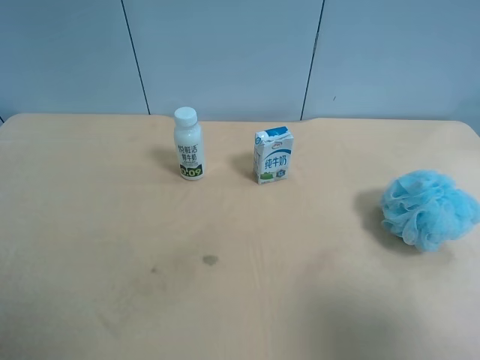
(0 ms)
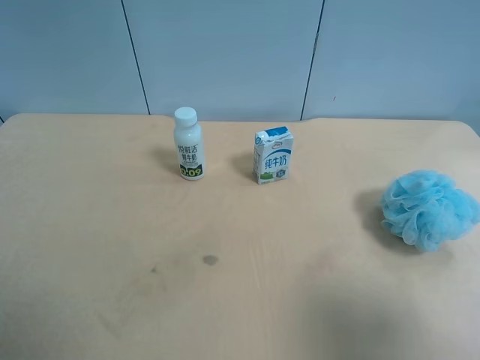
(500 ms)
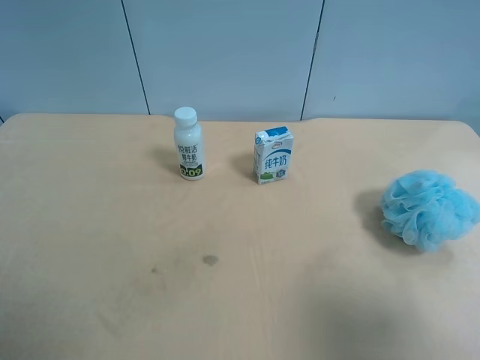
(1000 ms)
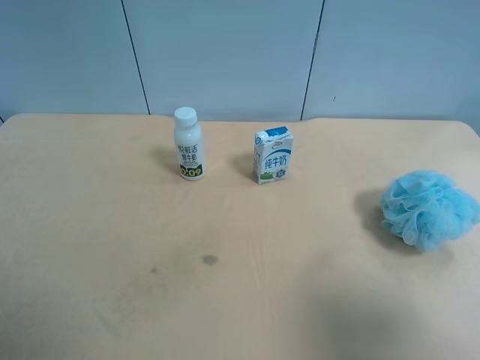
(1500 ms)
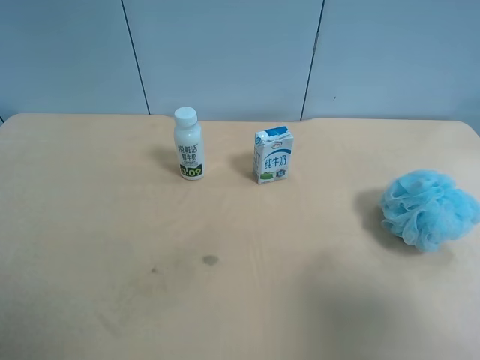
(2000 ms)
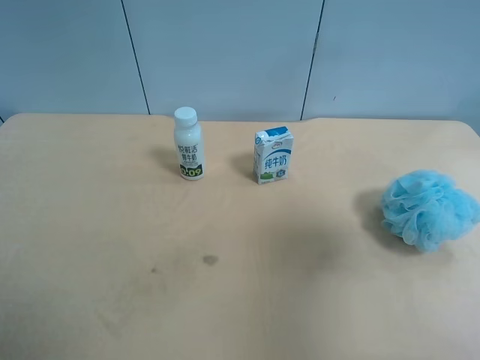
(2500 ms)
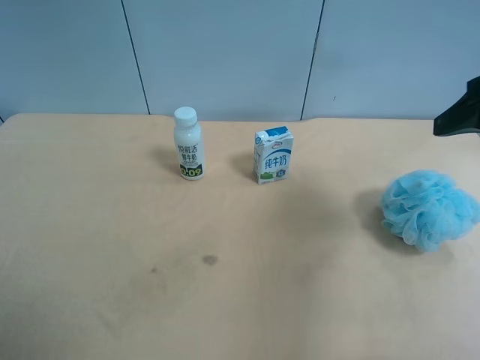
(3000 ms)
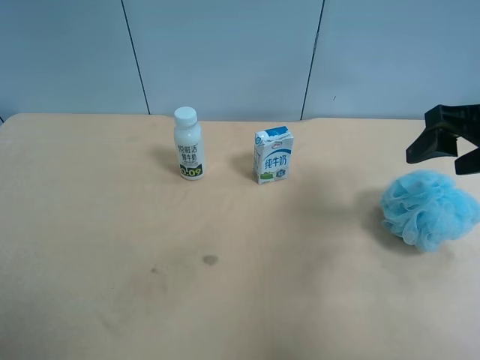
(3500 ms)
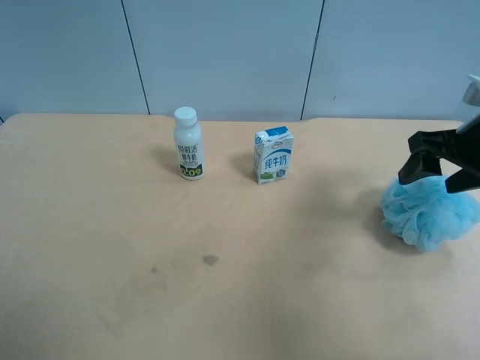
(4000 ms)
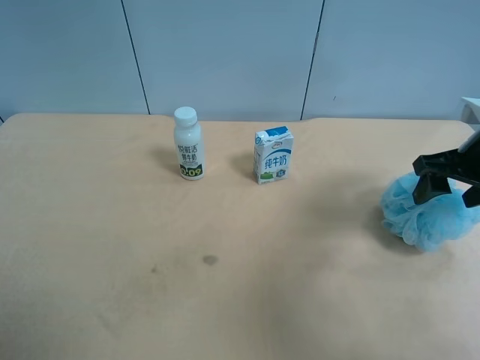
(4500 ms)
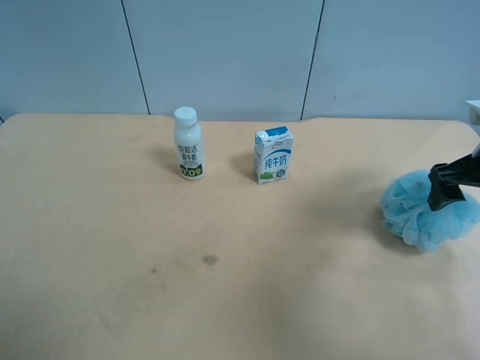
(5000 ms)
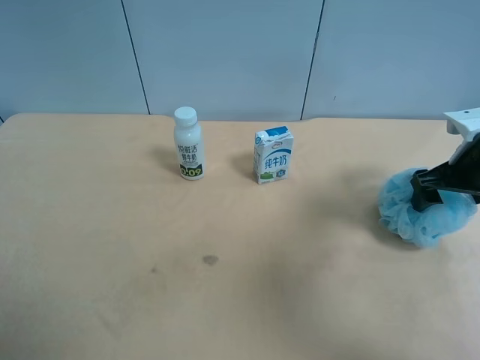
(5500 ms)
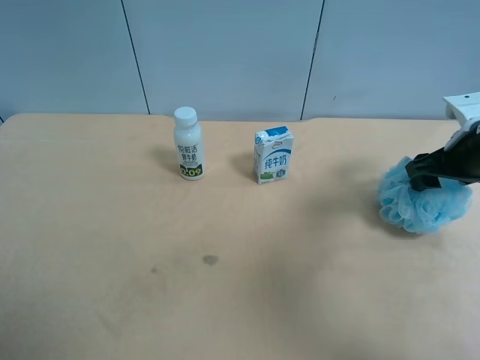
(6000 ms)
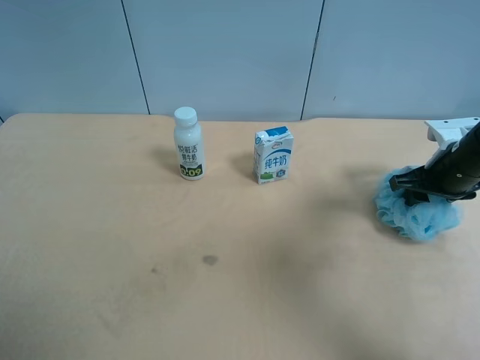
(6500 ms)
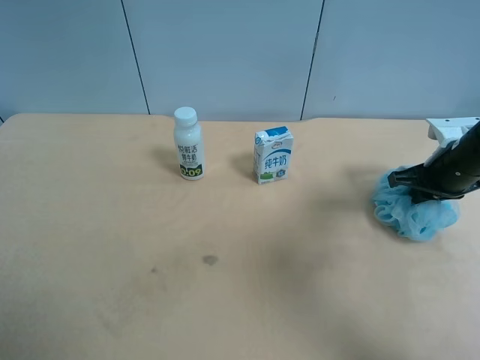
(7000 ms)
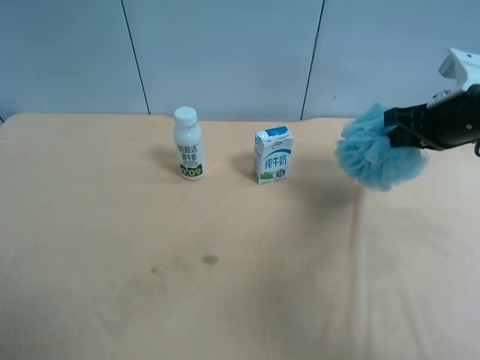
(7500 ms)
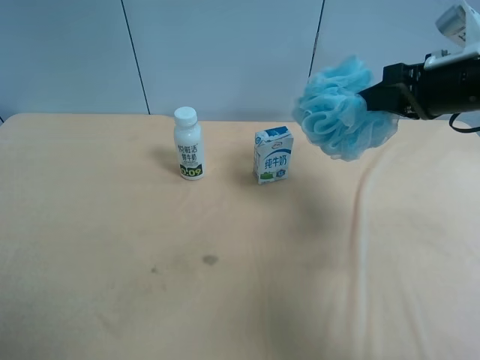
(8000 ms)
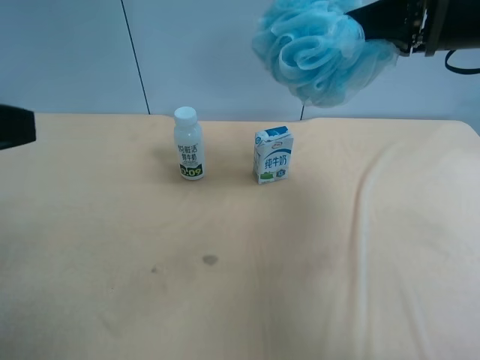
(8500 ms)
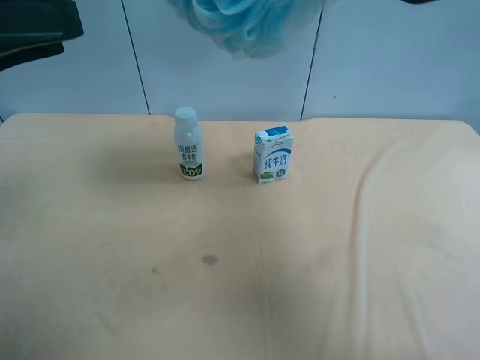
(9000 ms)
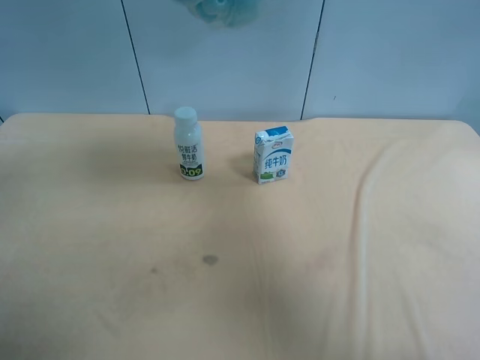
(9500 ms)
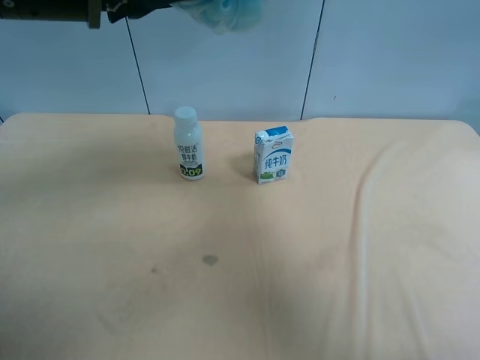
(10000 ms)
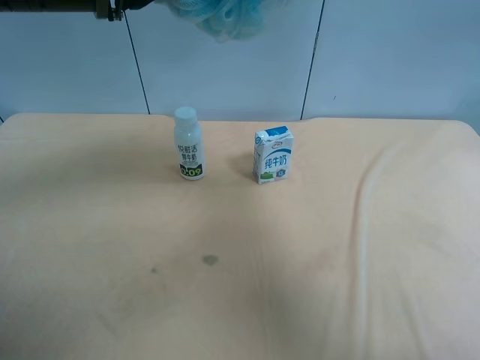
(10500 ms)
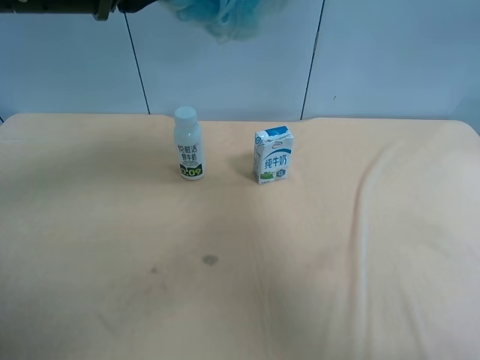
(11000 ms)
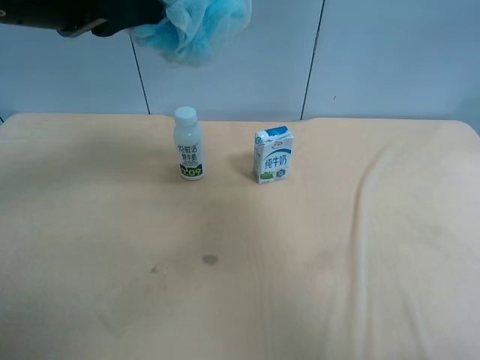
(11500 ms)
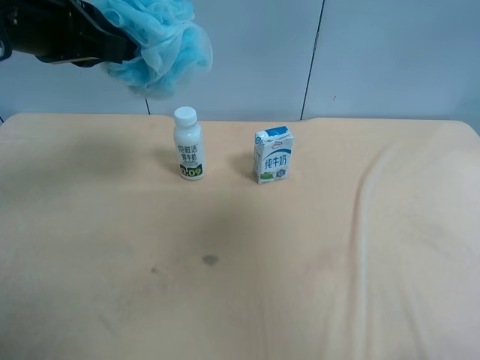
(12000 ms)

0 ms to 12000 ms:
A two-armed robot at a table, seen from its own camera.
Task of the whole recording: use the right gripper to pick up the item and transfer it from the right gripper to the left gripper.
2000 ms to 4000 ms: The right gripper is displaced forward by roughly 25 cm.
4000 ms to 6000 ms: The right gripper ends up roughly 5 cm from where it was.
6000 ms to 8000 ms: The right gripper heads upward and to the left, covering some 10 cm, and closes.
8000 ms to 10000 ms: The left gripper is displaced forward and to the right by some 25 cm; the right gripper is displaced upward and to the left by about 20 cm.
10000 ms to 12000 ms: The left gripper closes its fingers; the right gripper moves backward and to the right, some 25 cm, and opens up.

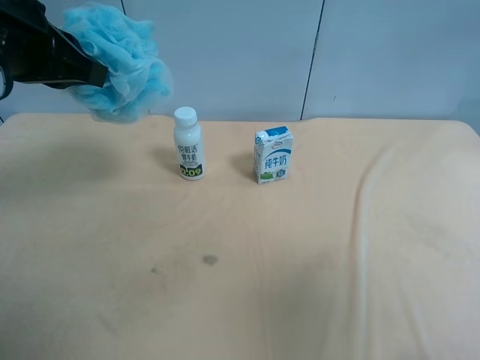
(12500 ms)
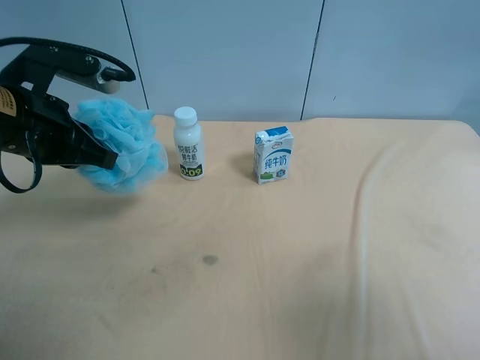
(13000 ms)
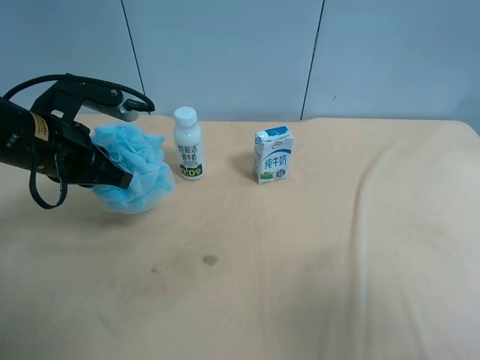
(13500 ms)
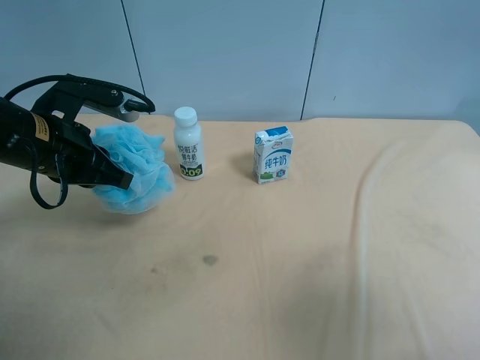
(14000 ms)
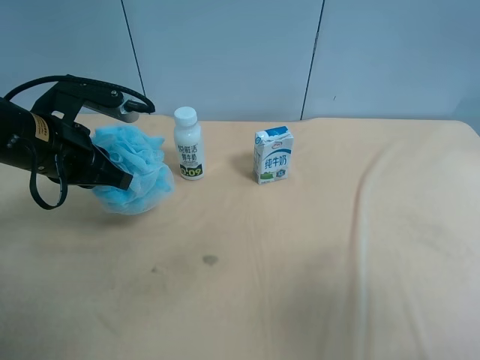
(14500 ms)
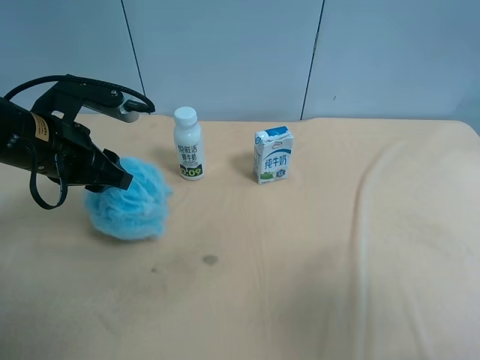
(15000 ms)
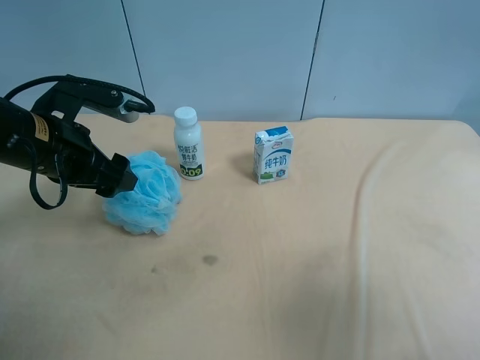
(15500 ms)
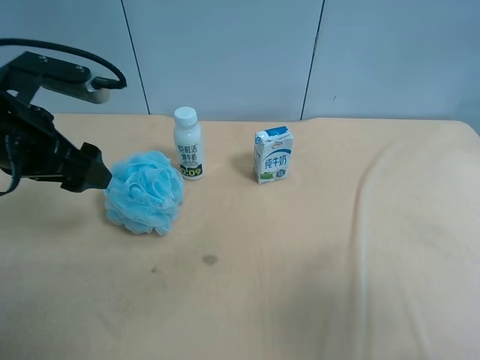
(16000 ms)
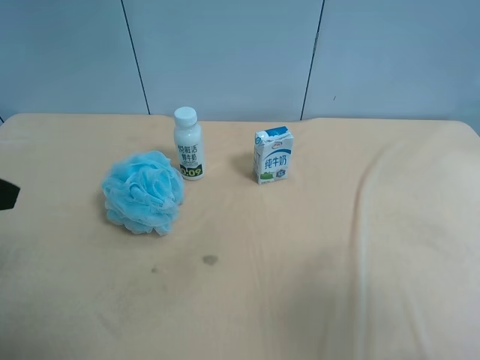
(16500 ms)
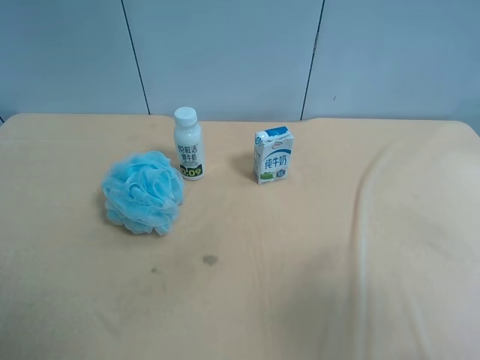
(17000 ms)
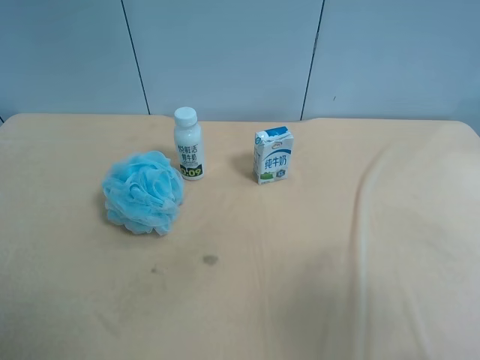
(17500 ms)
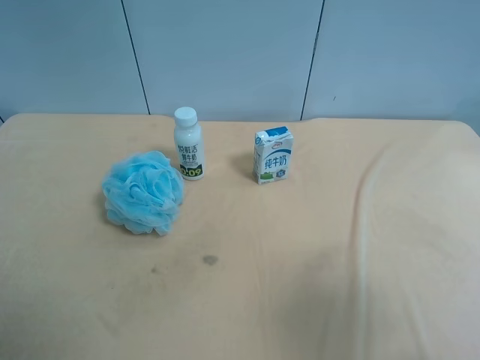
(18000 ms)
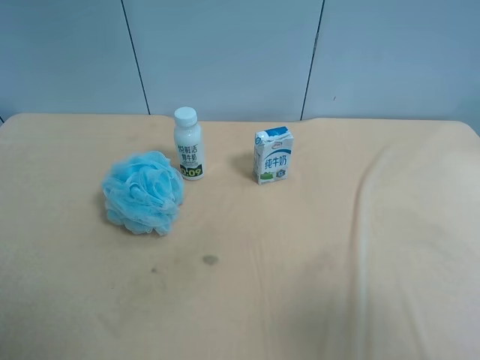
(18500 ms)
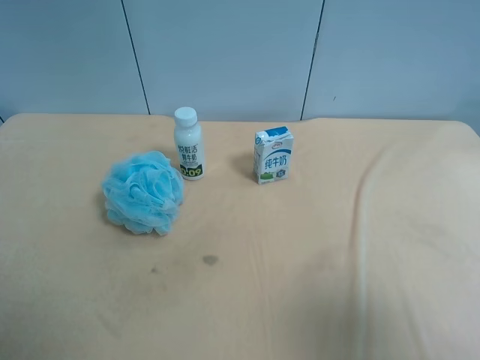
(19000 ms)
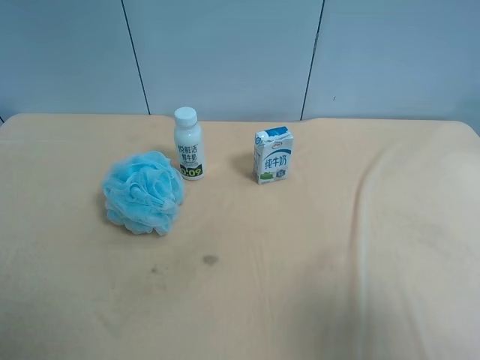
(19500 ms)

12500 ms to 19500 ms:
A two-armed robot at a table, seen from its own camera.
Task of the whole recording: use the right gripper to pick up the item and transfer it from the right gripper to the left gripper.
12500 ms to 14500 ms: The left gripper shifts approximately 10 cm downward.
14500 ms to 16000 ms: The left gripper shifts by approximately 5 cm, and opens.
16000 ms to 17500 ms: The left gripper goes about 20 cm backward and to the left.
